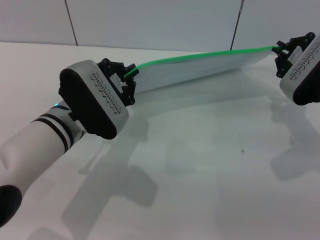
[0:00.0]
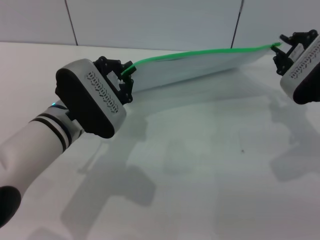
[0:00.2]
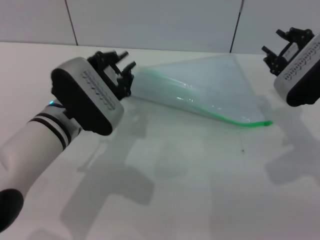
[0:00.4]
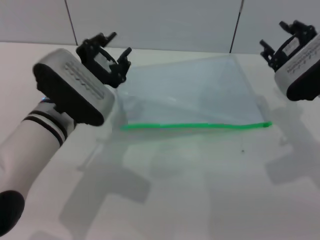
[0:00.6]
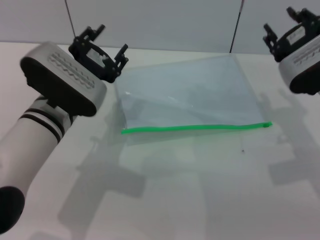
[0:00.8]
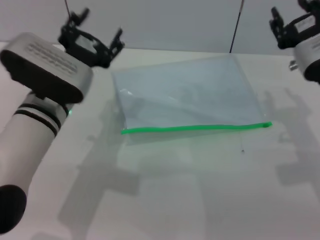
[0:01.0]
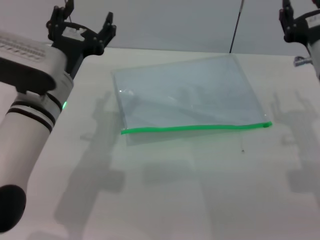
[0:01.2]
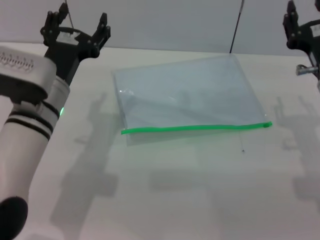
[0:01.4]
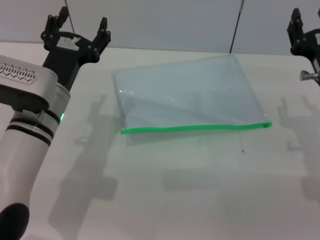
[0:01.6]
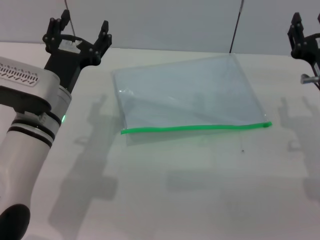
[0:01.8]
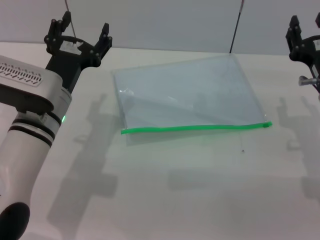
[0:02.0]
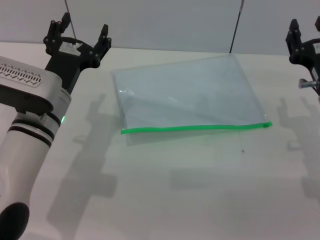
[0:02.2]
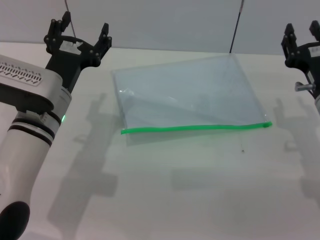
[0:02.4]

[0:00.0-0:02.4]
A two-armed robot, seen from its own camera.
Step, 0:00.4 to 0:01.4: Place the transparent plastic bag.
0:00.0 to 0:01.2: The left gripper opens up, while the right gripper opens up.
0:01.2 to 0:02.4: The right gripper moves approximately 5 cm.
